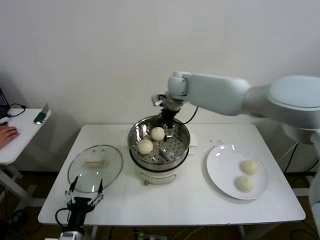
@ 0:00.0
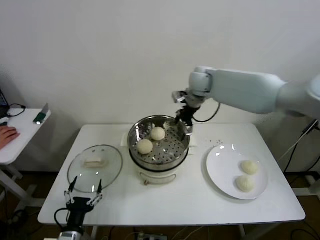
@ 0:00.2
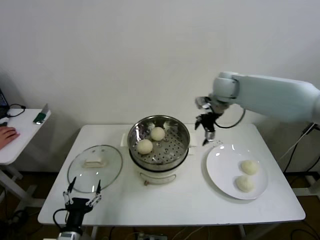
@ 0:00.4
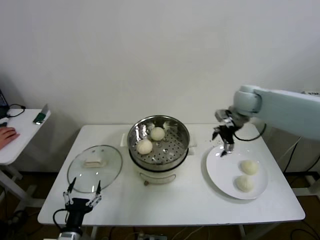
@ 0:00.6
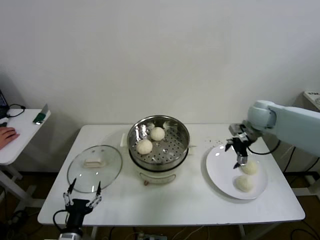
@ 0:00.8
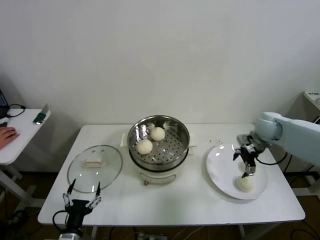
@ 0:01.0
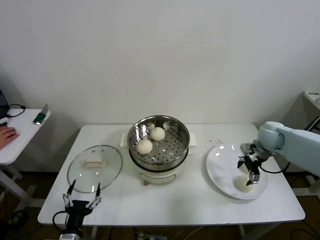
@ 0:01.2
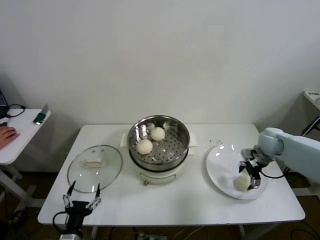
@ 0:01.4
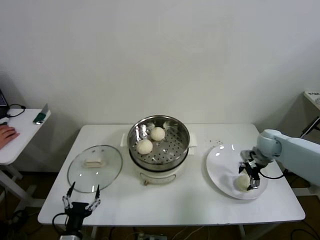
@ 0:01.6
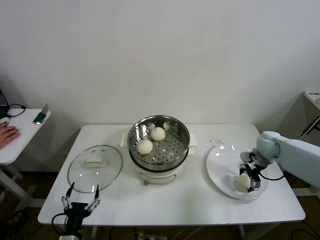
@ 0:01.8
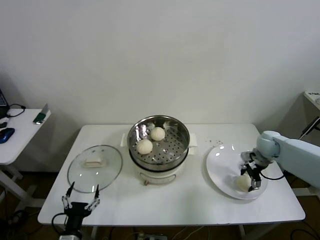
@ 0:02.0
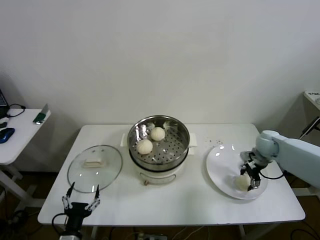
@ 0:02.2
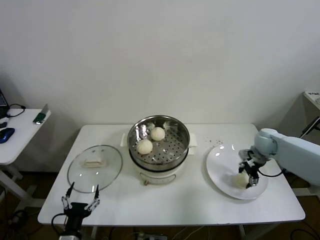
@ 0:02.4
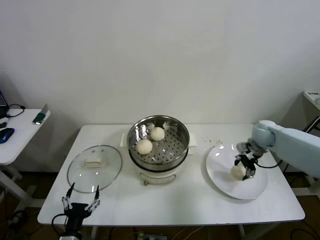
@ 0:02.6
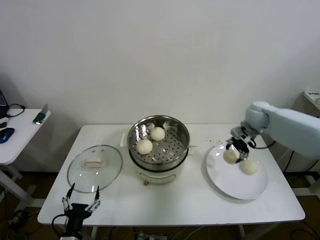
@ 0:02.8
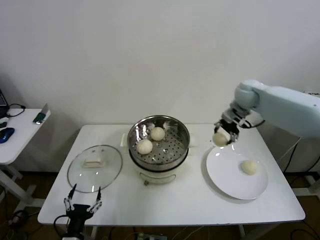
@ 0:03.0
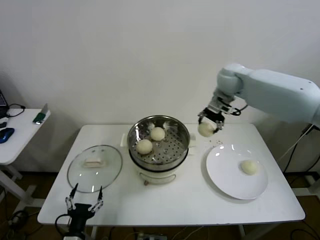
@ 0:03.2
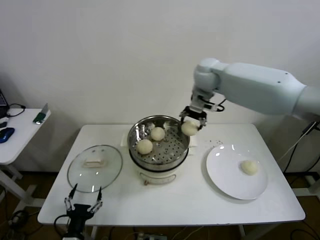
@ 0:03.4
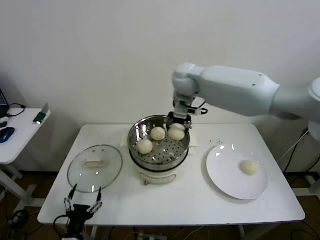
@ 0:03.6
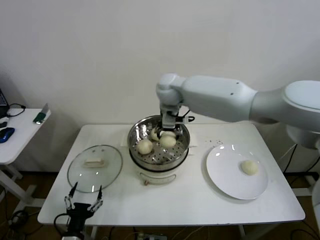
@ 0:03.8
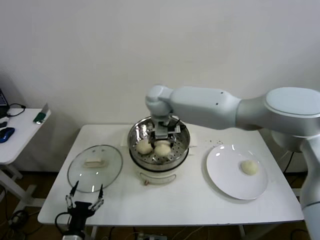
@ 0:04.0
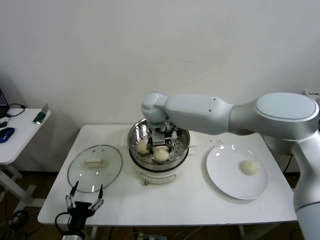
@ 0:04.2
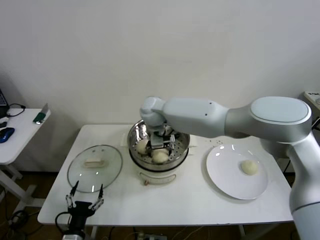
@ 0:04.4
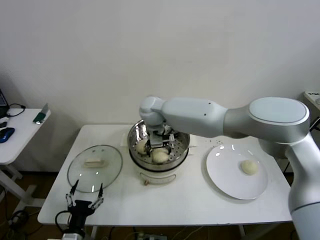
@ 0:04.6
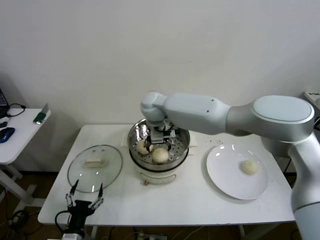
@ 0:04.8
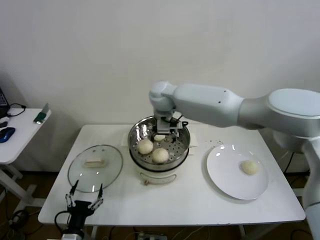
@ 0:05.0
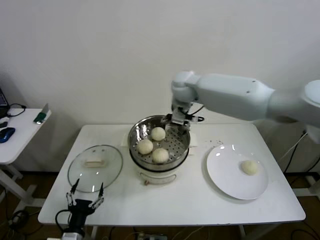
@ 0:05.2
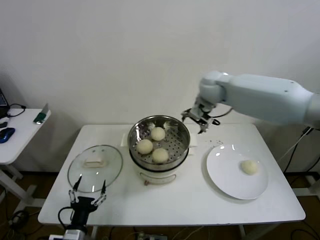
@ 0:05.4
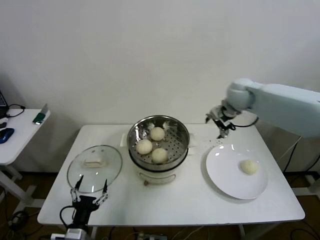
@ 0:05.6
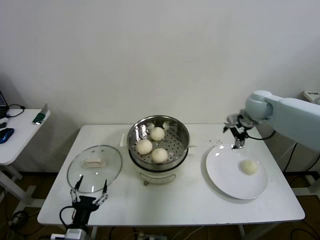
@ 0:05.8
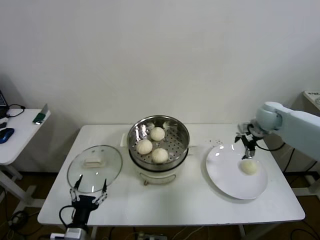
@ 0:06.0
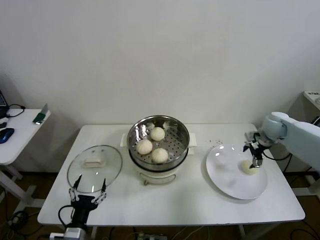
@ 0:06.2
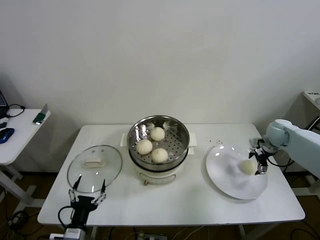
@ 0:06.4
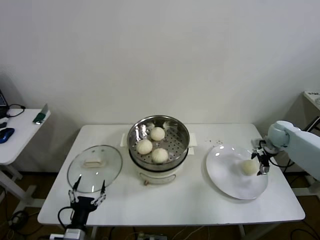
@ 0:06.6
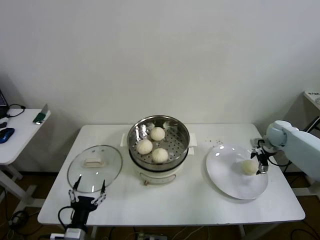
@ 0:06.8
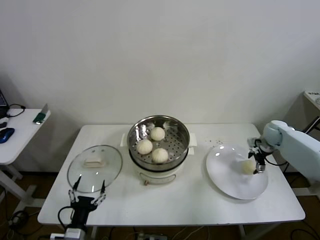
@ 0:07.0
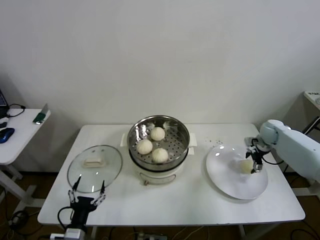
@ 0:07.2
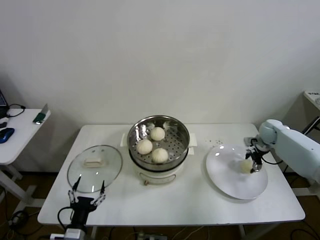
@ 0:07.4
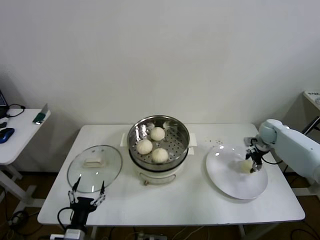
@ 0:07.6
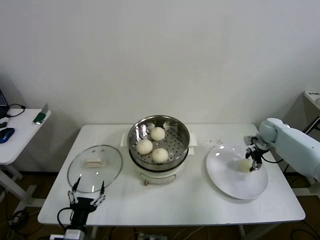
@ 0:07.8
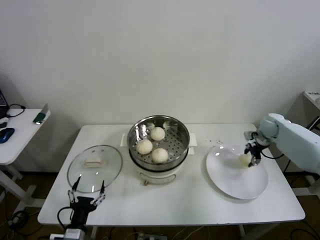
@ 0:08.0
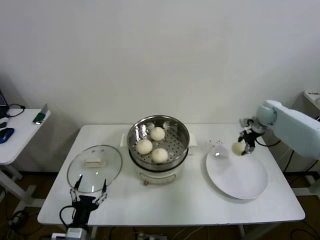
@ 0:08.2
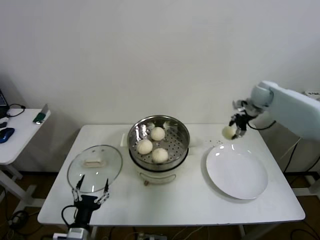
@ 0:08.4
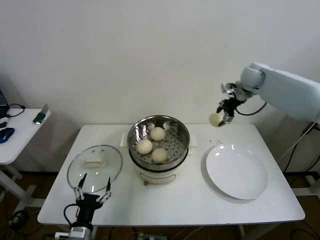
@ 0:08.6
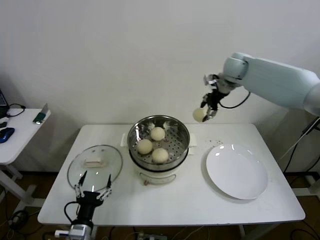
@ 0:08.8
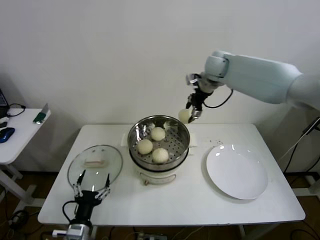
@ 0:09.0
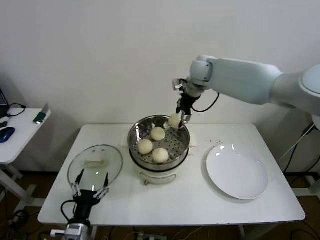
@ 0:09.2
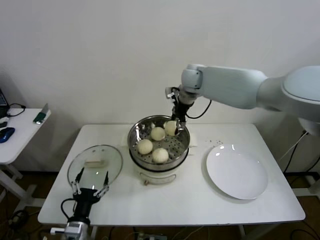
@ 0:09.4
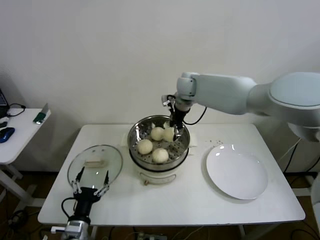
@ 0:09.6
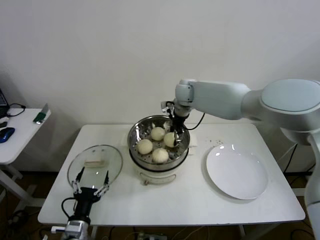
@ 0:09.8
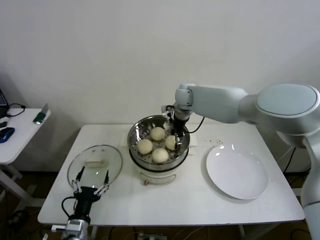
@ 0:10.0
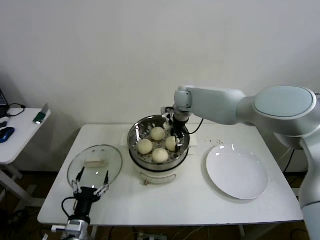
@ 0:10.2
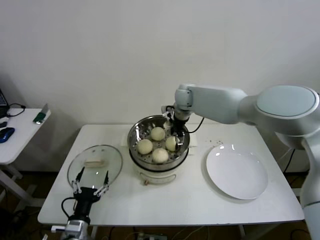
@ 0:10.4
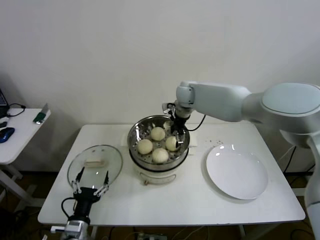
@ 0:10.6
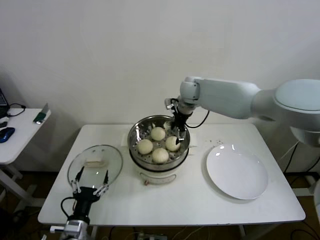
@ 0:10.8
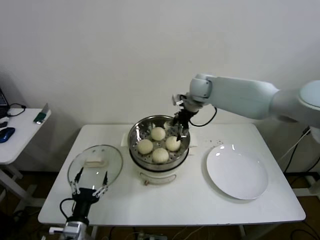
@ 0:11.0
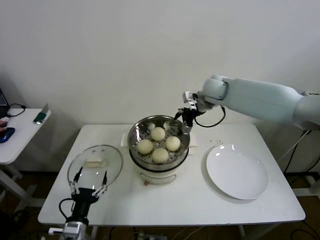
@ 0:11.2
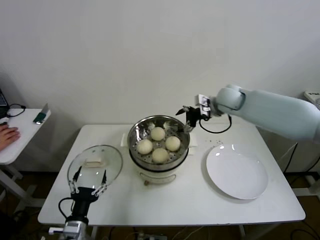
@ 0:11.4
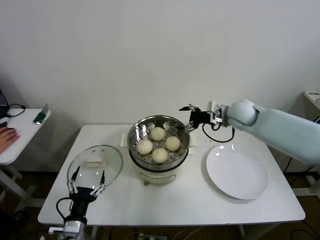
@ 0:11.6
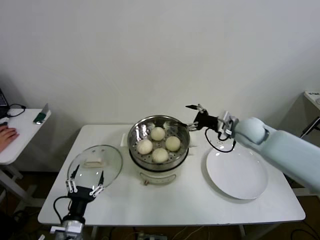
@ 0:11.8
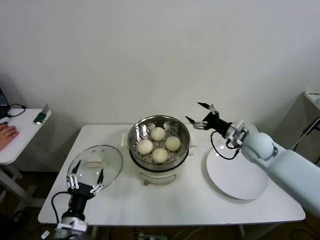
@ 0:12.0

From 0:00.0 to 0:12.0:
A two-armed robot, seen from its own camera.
Step, from 0:00.2 to 0:02.0: Grasp the baozi in the plate with right gripper.
Step, from 0:02.2 to 0:04.8: Place the baozi on the steamer with right gripper.
Step, from 0:05.0 to 0:07.6: Grasp the baozi in the plate with right gripper.
Step, from 0:07.8 to 0:10.8: Place the baozi on the steamer with right gripper.
From 0:00.0 to 0:01.6: The right gripper is displaced to the right and downward by about 40 cm.
From 0:01.6 to 0:03.0: The right gripper moves upward, to the left and forward, some 25 cm, and closes its fingers.
From 0:03.0 to 0:04.4: The right gripper is displaced to the left by approximately 30 cm, and opens its fingers.
From 0:04.4 to 0:06.0: The right gripper is displaced to the right by approximately 40 cm.
From 0:06.0 to 0:07.6: The right gripper shifts approximately 10 cm downward and to the right, and closes up.
From 0:07.6 to 0:09.0: The right gripper moves upward and to the left, about 35 cm.
From 0:09.0 to 0:10.4: The right gripper is displaced downward and to the left by roughly 15 cm, and opens.
From 0:10.4 to 0:12.0: The right gripper is displaced to the right, backward and downward by some 30 cm.

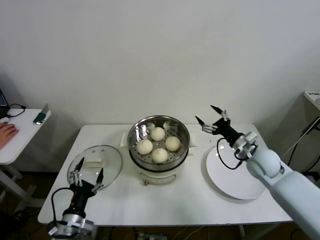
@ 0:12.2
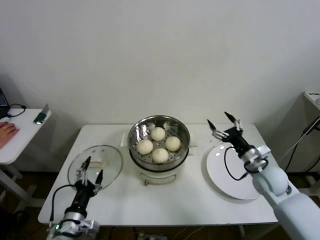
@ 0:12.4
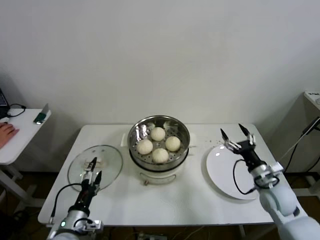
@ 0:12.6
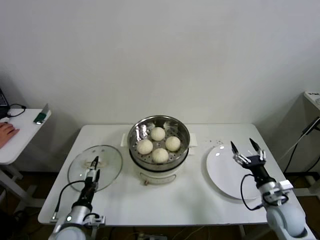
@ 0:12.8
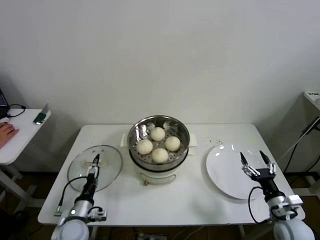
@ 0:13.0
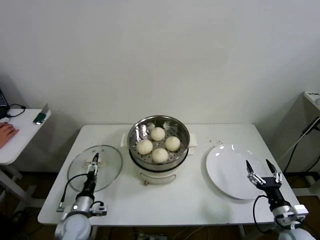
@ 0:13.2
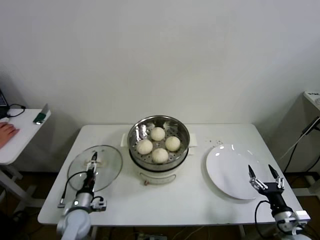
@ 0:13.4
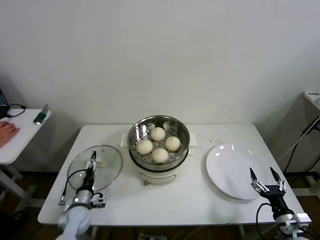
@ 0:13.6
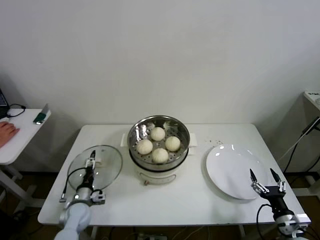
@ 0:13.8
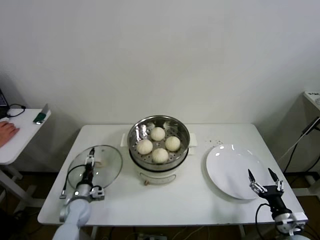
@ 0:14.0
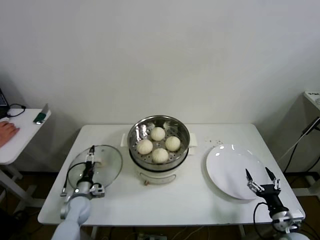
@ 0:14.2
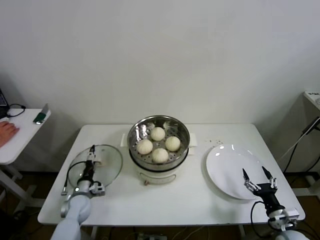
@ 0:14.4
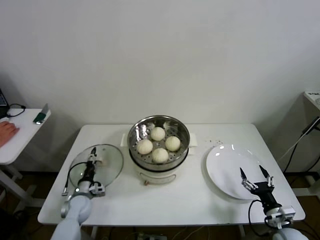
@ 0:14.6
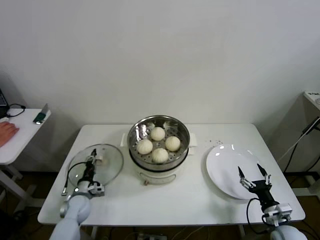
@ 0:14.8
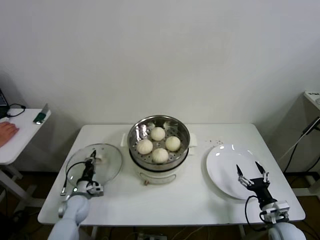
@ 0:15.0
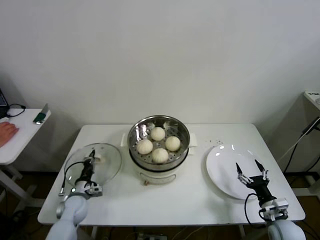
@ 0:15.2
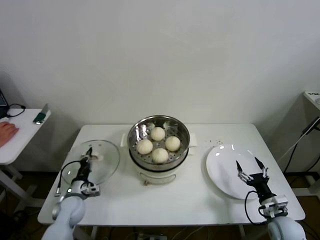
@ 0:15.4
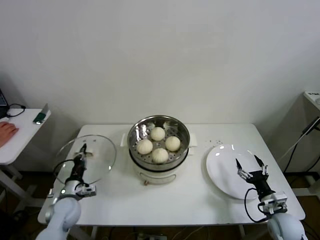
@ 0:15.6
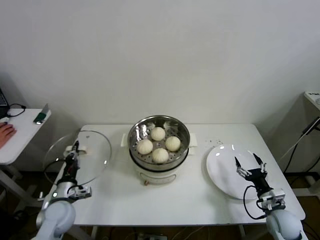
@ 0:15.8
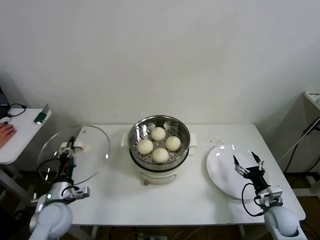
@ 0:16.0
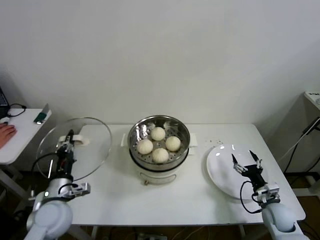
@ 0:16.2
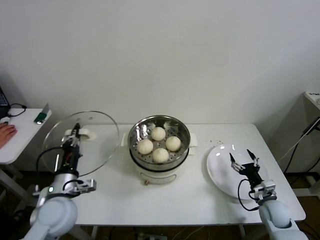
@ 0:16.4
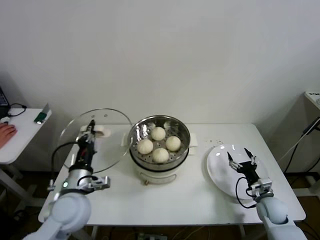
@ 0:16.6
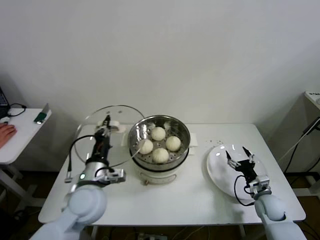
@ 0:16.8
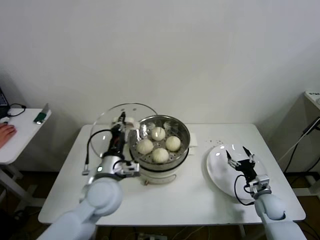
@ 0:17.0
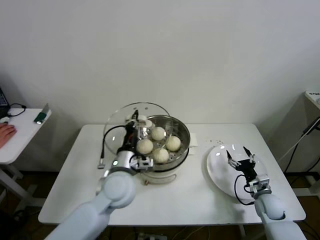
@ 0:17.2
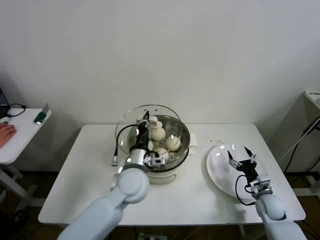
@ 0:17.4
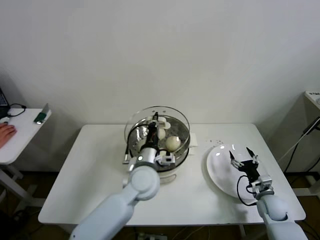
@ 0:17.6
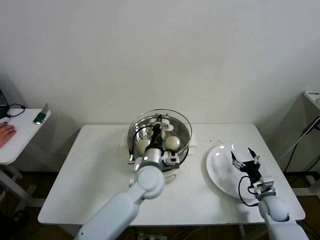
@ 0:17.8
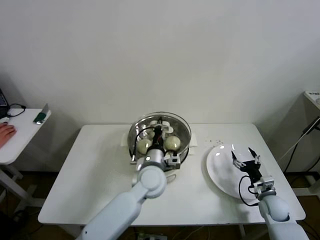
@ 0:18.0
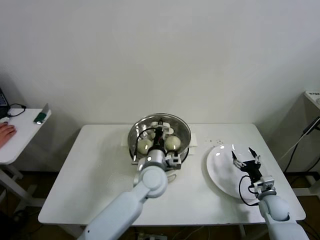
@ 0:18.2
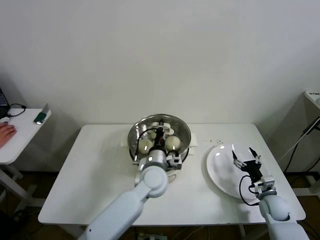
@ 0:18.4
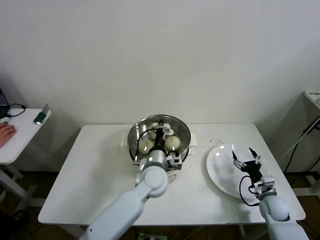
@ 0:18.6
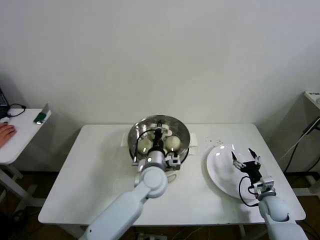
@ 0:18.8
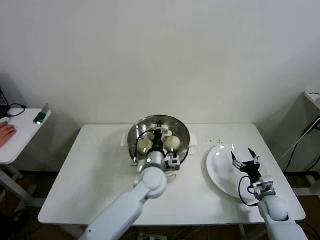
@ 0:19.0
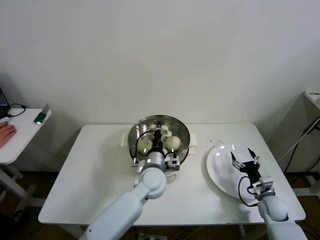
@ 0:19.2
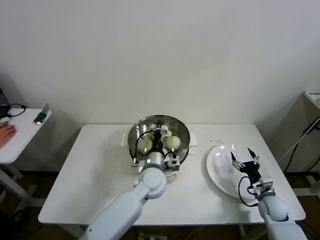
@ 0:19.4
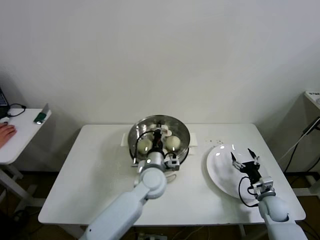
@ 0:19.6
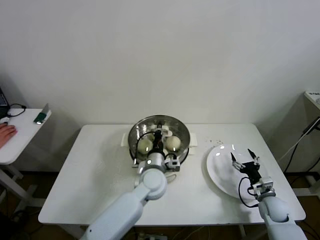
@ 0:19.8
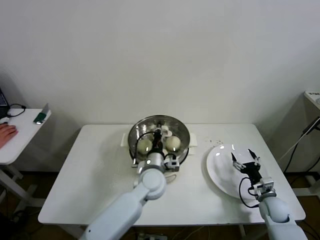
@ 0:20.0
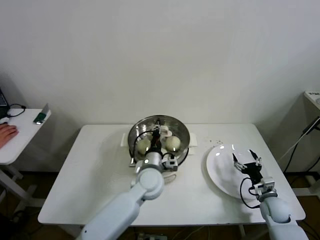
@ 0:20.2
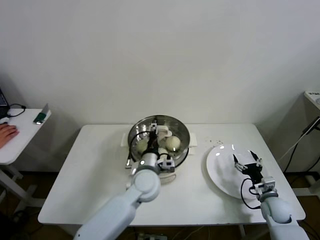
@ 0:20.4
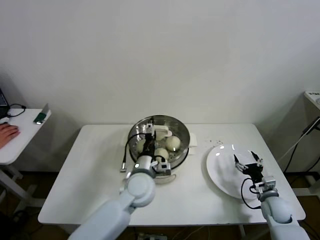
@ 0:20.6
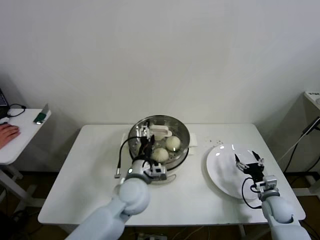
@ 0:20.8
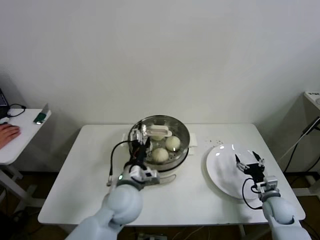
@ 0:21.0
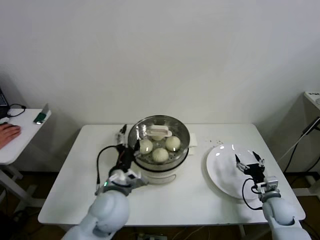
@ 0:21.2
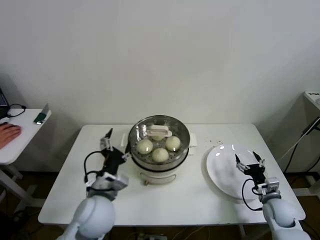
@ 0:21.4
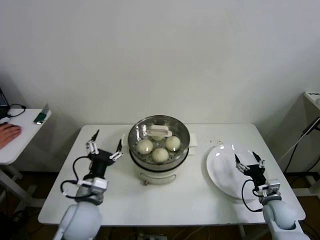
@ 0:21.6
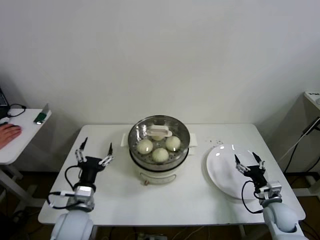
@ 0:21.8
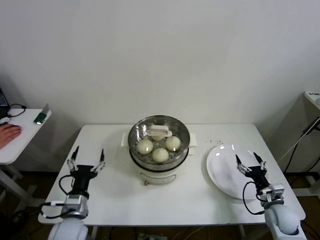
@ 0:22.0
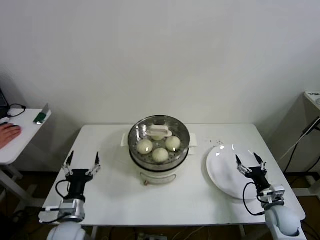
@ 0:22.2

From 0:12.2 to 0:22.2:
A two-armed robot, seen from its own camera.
Step, from 0:12.2 to 0:15.0: Grasp the pot lid with left gripper.
Step, from 0:15.4 to 0:21.0: Place the pot lid on the steamer with left gripper.
From 0:12.2 to 0:13.6: The right gripper shifts approximately 25 cm backward and downward; the left gripper shifts roughly 15 cm forward and downward.
From 0:13.6 to 0:15.0: The right gripper shifts by some 5 cm, while the left gripper heads forward, covering approximately 5 cm, and closes.
From 0:15.0 to 0:16.4: The right gripper goes about 10 cm forward; the left gripper heads upward and backward, covering some 20 cm.
From 0:16.4 to 0:18.0: The left gripper moves to the right and forward, roughly 25 cm.
From 0:18.0 to 0:19.4: The grippers stay close to where they were, moving slightly.
From 0:19.4 to 0:20.8: The left gripper changes place by roughly 5 cm, and opens its fingers.
From 0:20.8 to 0:22.2: The left gripper shifts approximately 20 cm to the left and backward.
